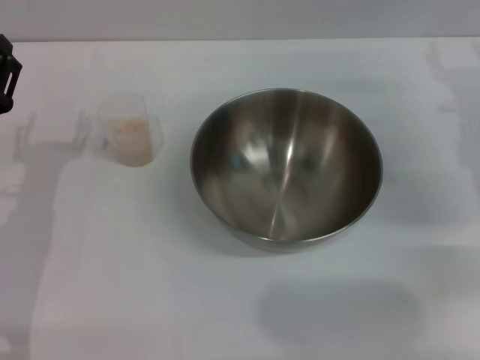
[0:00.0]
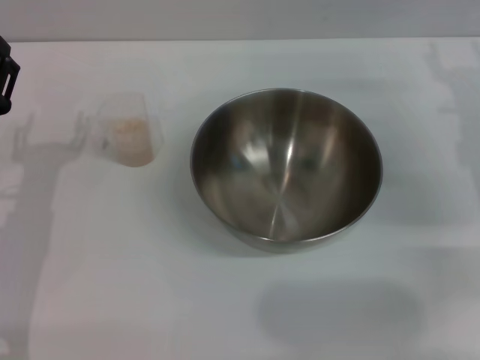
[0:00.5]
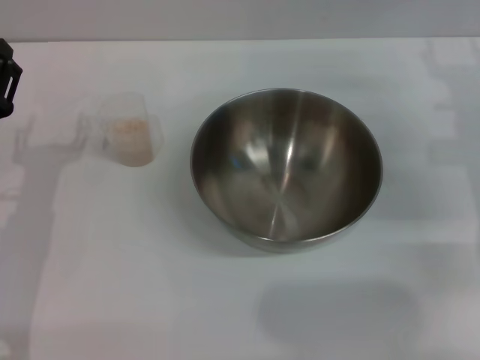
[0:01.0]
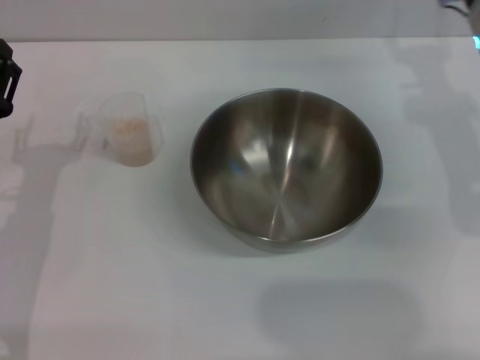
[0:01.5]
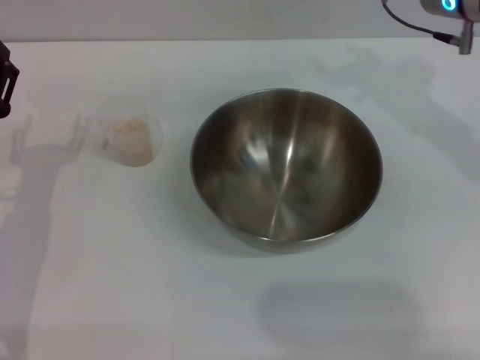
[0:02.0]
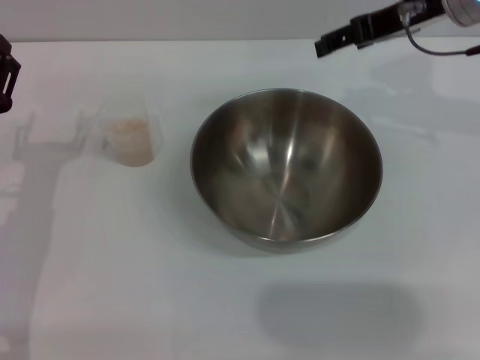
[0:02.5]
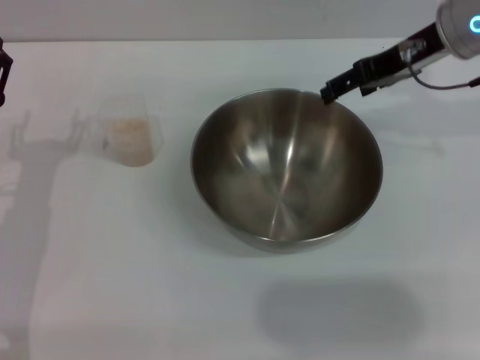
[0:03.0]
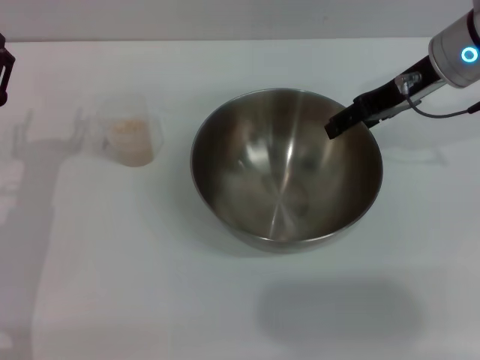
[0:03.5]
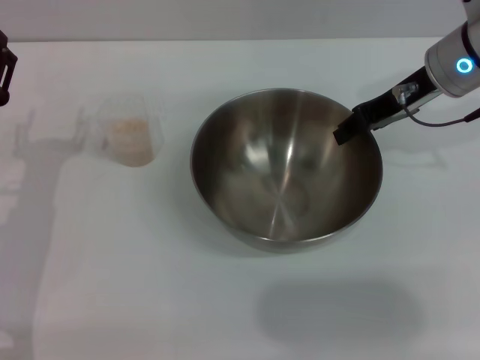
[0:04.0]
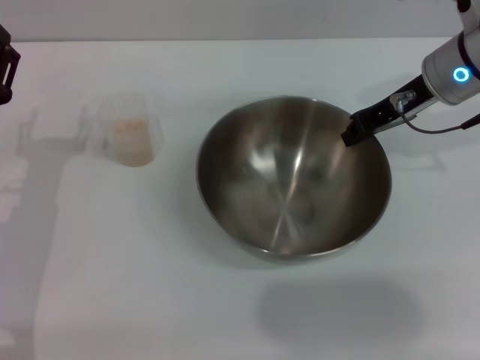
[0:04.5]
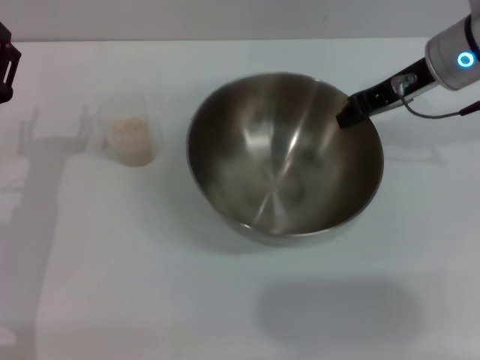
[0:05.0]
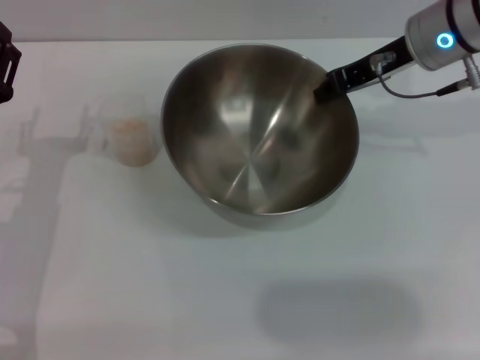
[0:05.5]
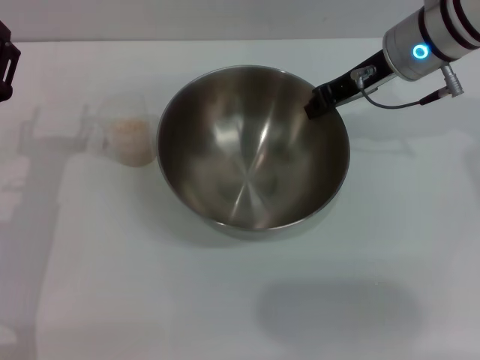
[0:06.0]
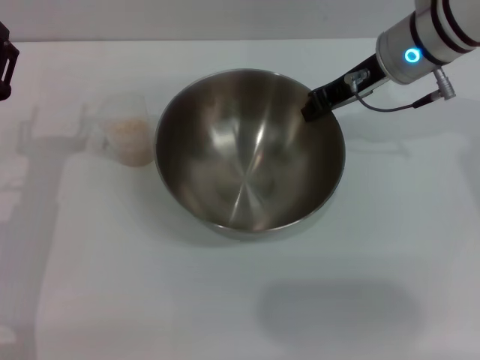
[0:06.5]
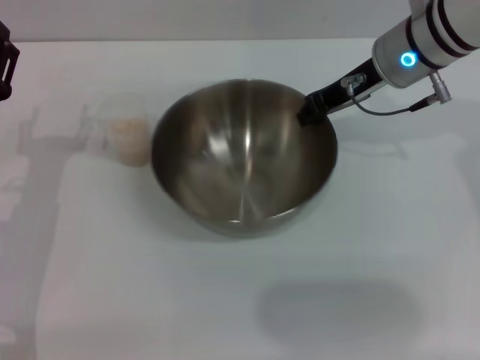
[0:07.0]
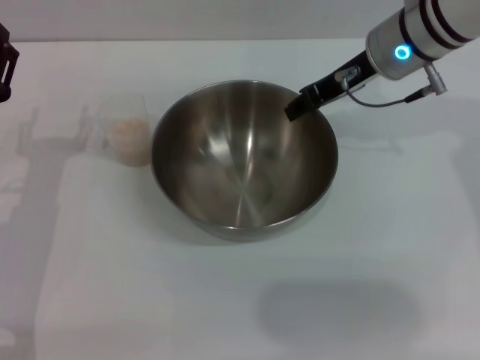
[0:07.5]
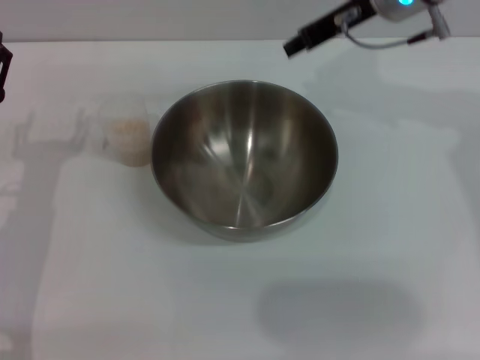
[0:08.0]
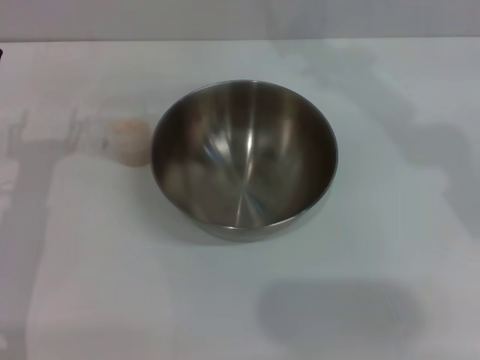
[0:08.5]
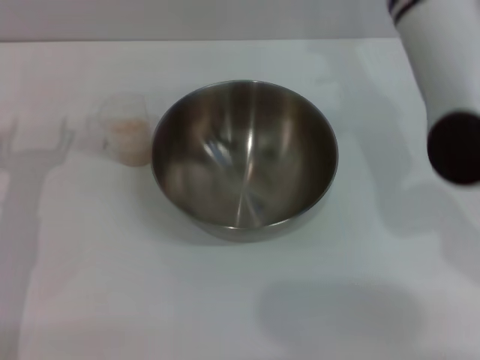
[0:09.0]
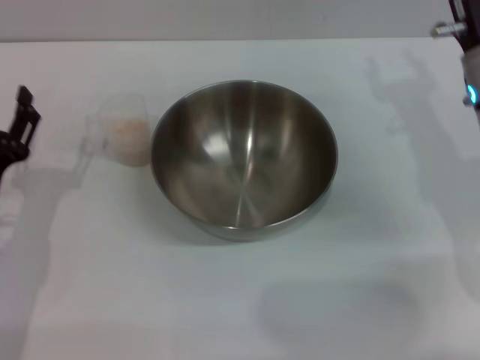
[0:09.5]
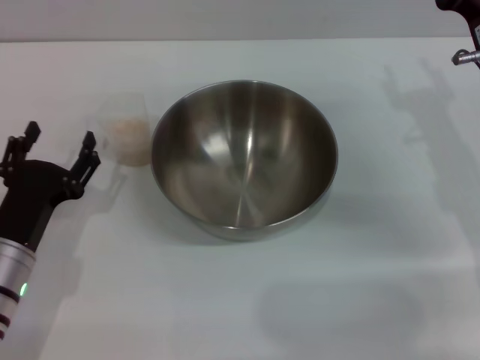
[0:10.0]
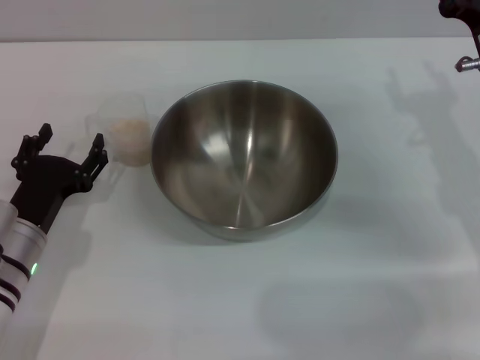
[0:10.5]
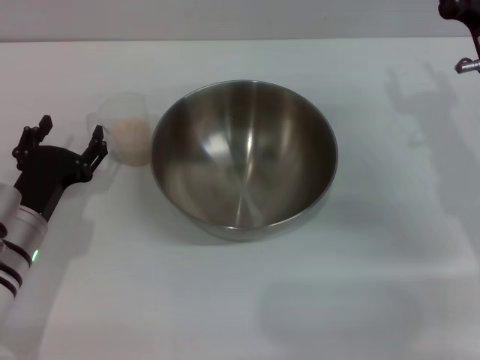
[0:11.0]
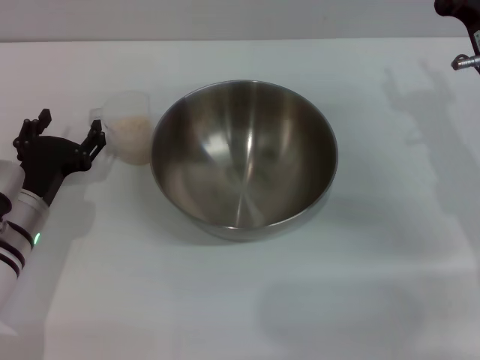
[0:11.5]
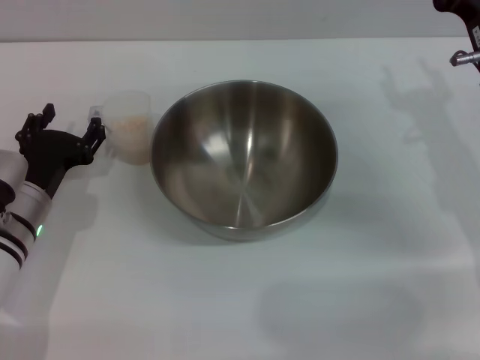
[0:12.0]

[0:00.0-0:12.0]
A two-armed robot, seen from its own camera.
Task of the whole recording: Place the bowl in the middle of the table with one hand and pour the rice from the grain cup into it with the other hand.
Step, 0.0 to 5.0 s: Pick up the bowl with the right gripper.
Step, 5.5 to 7.5 s: Place the bowl in the center of view with the right gripper.
0.0 to 2.0 s: The right gripper shifts roughly 15 cm upward and to the left.
4.0 to 6.0 s: The right gripper closes its fingers.
6.0 to 8.0 s: The right gripper shifts by some 5 cm, and opens.
8.0 to 10.0 s: The right gripper shifts some 20 cm downward, backward and to the right, and opens, while the left gripper moves roughly 5 cm.
10.0 to 12.0 s: The left gripper heads forward, covering approximately 5 cm.

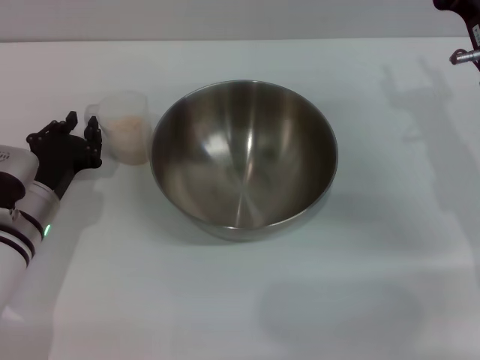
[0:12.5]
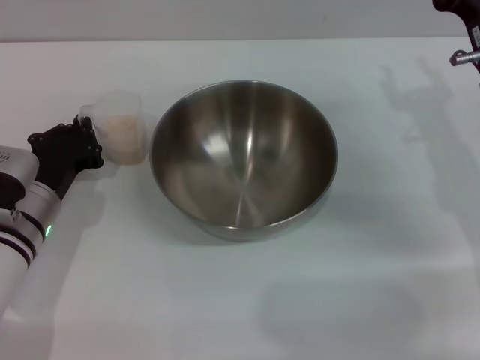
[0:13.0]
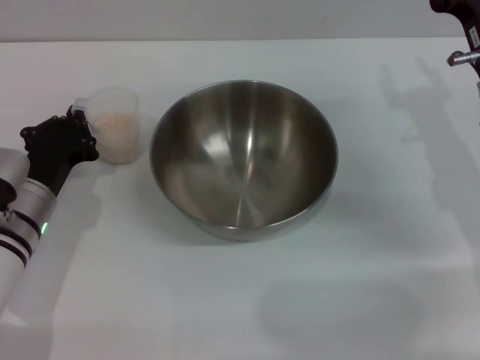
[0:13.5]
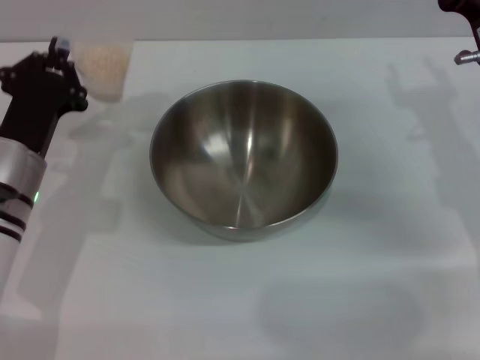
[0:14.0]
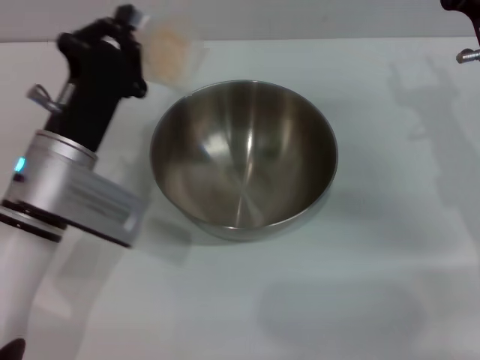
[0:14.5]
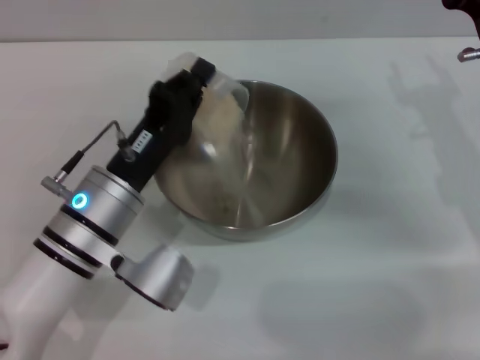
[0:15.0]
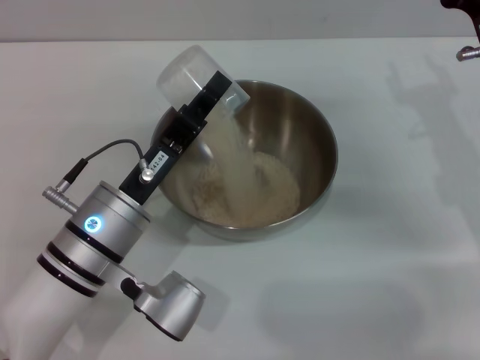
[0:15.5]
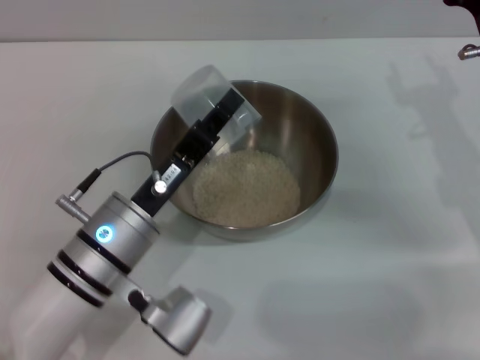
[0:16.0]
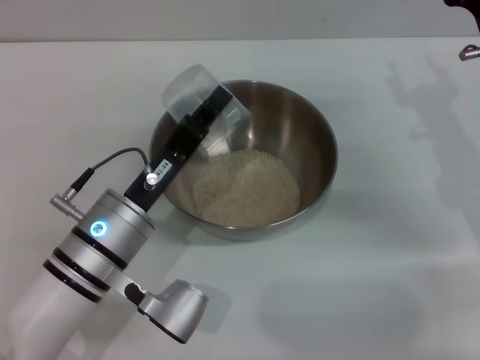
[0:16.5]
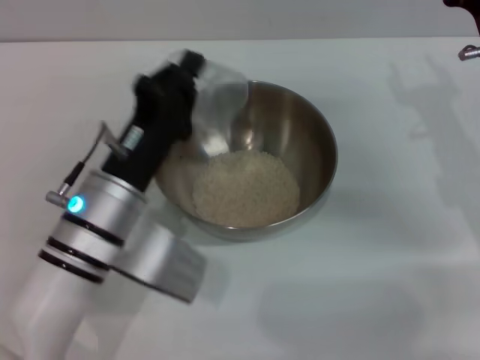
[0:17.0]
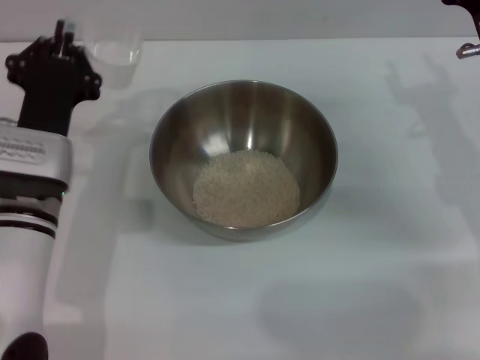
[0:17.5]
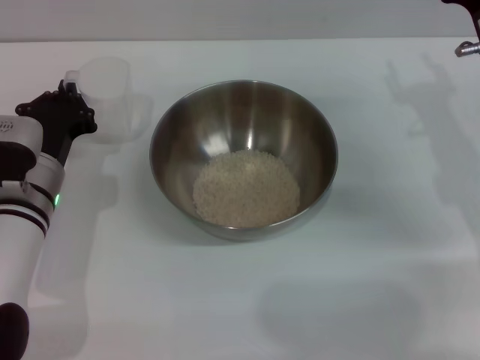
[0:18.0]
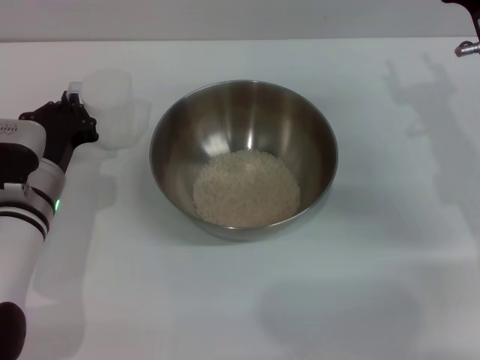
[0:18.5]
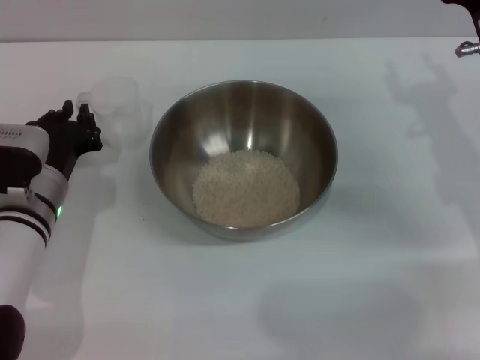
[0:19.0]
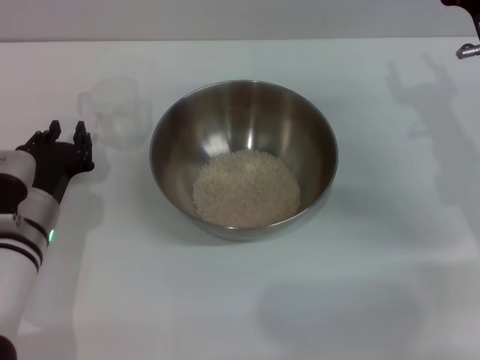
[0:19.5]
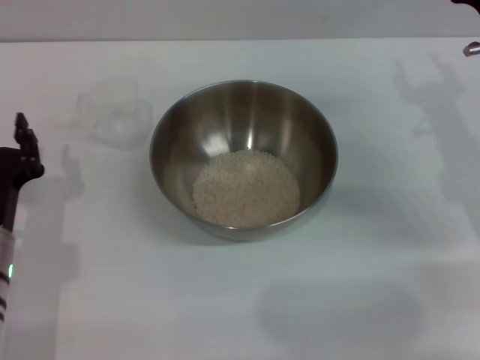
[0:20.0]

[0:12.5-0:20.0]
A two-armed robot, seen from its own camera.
Task of the whole recording: Place the bowl in the middle of the table with one hand and pour the rice from the grain cup into it with the other hand.
Step, 14.0 to 16.5 s: Pour the rice from the cup into the bowl with the left gripper.
Step, 17.0 to 19.0 s: Place the cup on the table with the left gripper.
12.5 to 14.5 s: The left gripper goes roughly 10 cm upward and to the right, and closes up.
14.5 to 16.5 s: The left gripper changes place by some 5 cm.
16.5 to 18.0 s: The left gripper is displaced to the left and forward by about 10 cm.
18.0 to 20.0 s: The left gripper is displaced backward by roughly 10 cm, and opens.

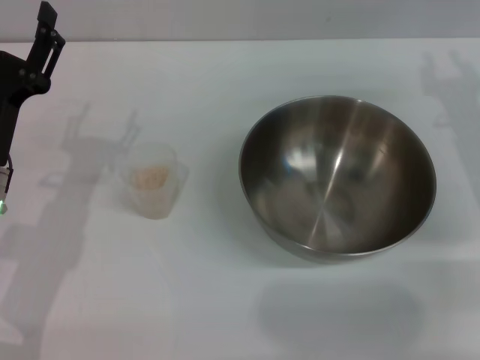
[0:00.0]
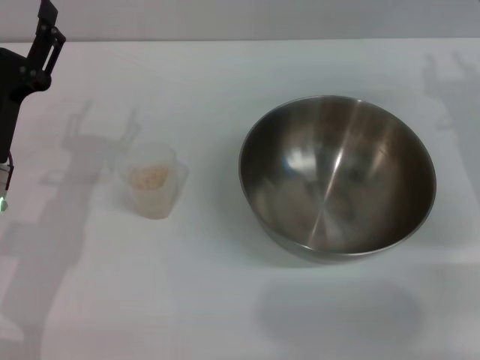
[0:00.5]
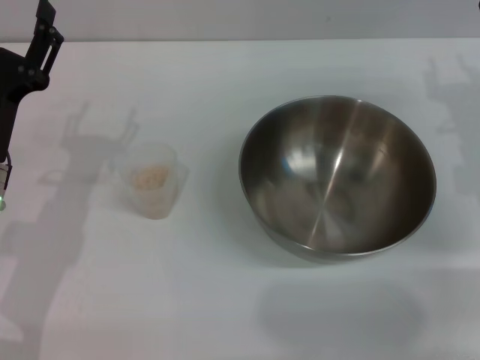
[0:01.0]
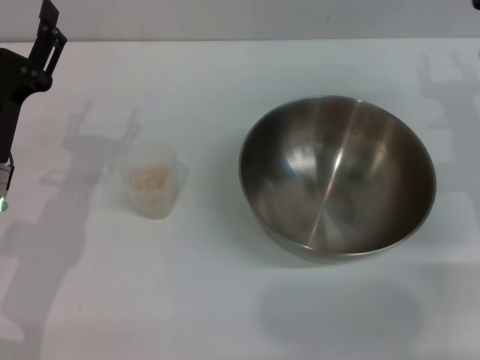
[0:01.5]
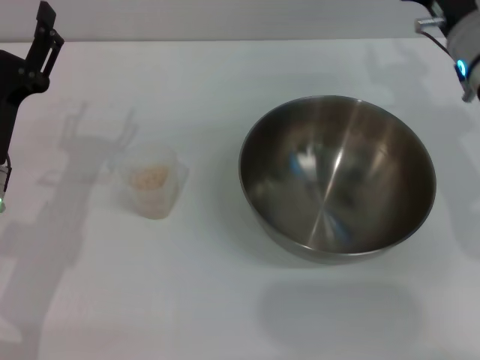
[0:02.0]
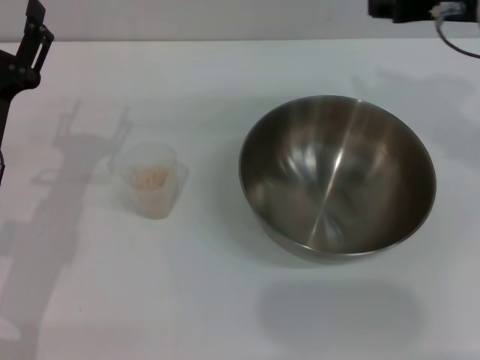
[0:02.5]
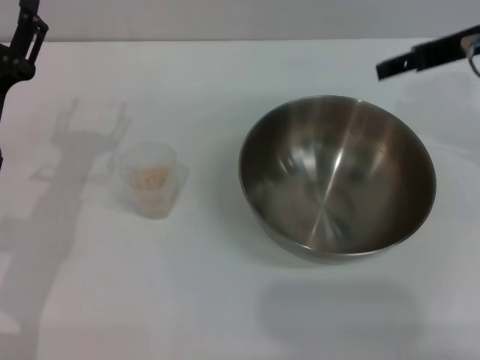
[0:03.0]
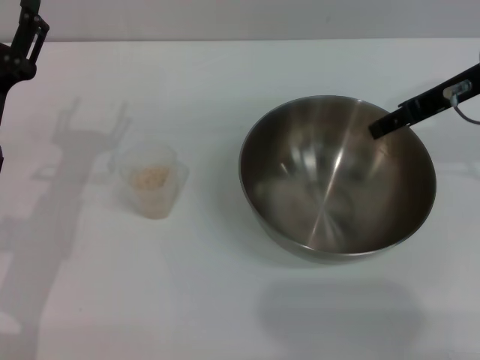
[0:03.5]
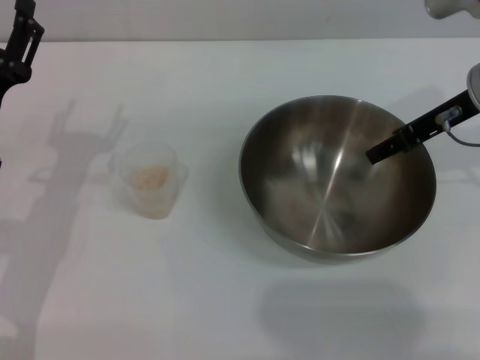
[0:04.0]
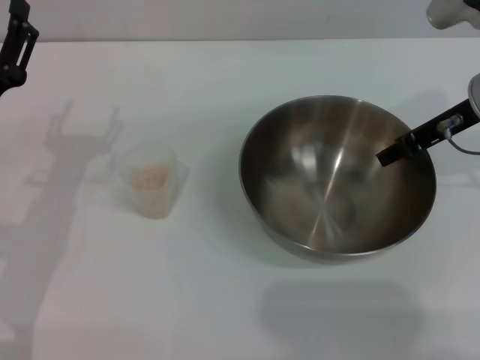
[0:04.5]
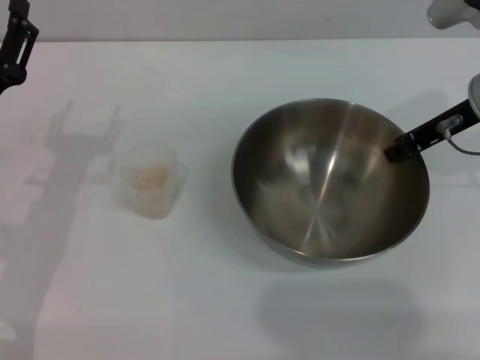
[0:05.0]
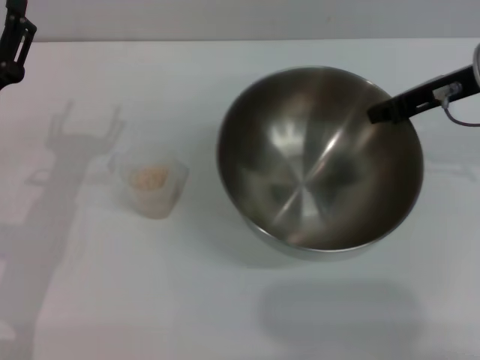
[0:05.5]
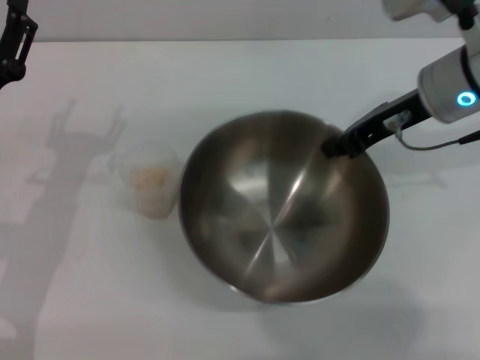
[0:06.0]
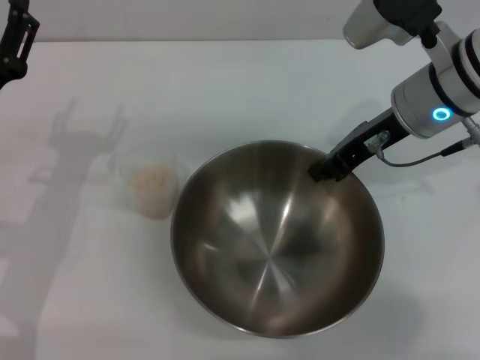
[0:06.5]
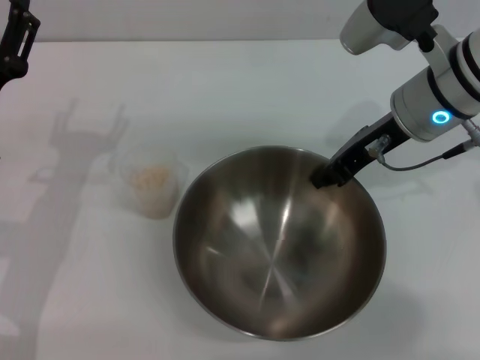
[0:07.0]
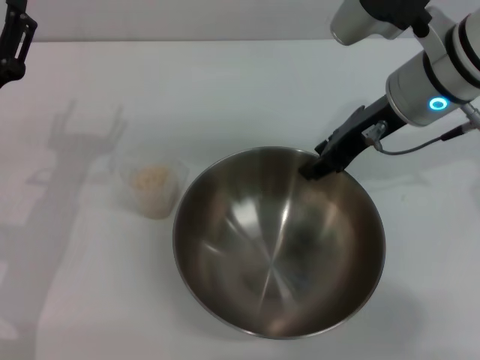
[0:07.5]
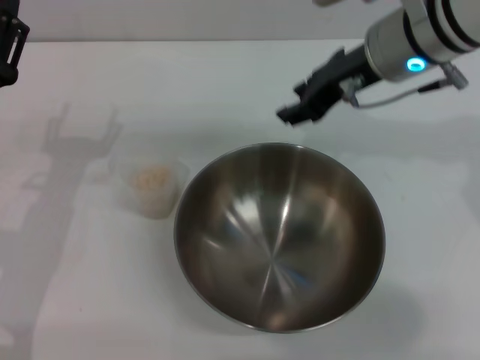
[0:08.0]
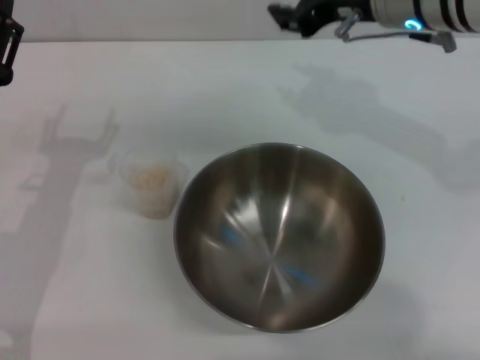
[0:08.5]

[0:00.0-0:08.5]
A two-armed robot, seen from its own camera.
Task of the whole recording: Place the bowl in the middle of the table with one hand and pour the rice from the grain cup into it with the other hand.
Step, 0.0 to 5.5 s: Pick up the bowl with the right gripper.
Step, 6.0 to 8.0 s: Place the bowl in the center of view with the right gripper.
0.0 to 2.0 s: The right gripper shifts approximately 5 cm to the left.
4.0 to 6.5 s: The right gripper shifts roughly 5 cm to the left, and closes its fingers.
6.5 to 8.5 s: The right gripper goes approximately 5 cm upward, and opens its fingers.
